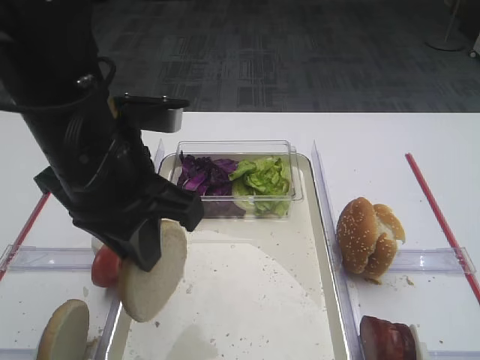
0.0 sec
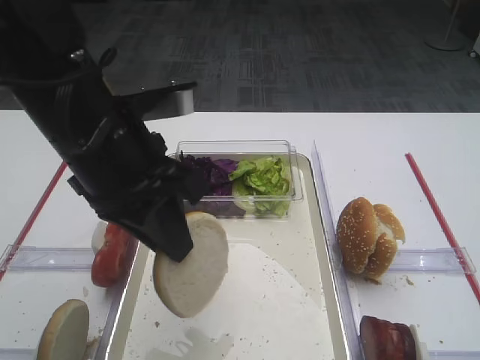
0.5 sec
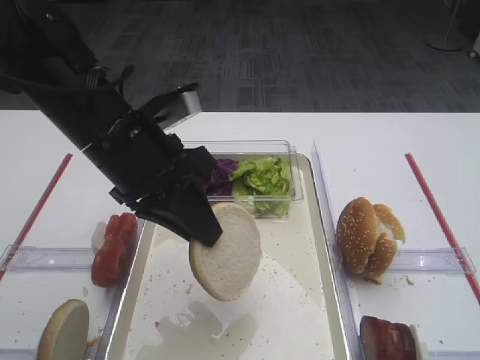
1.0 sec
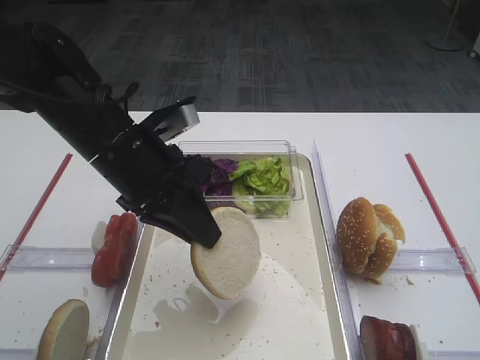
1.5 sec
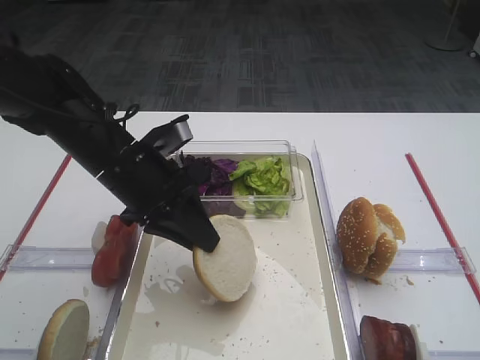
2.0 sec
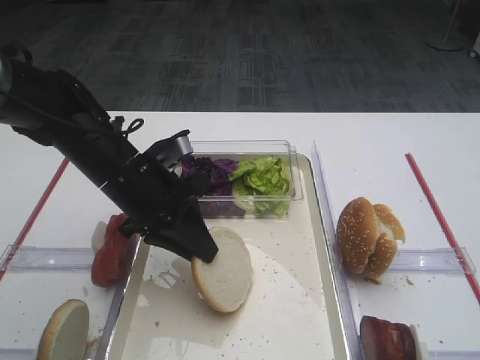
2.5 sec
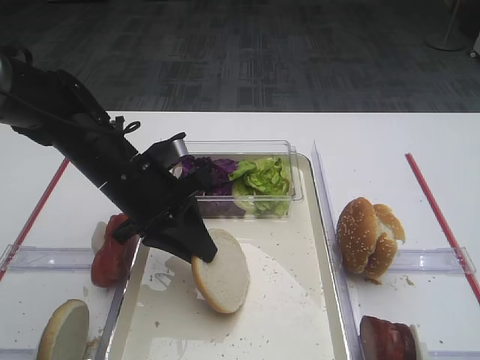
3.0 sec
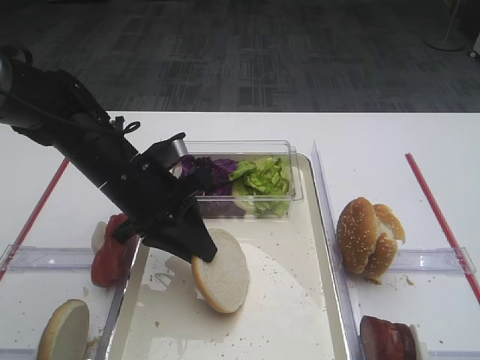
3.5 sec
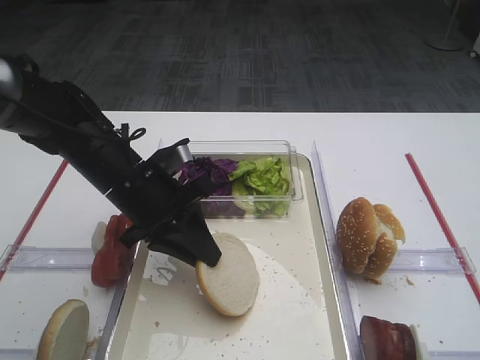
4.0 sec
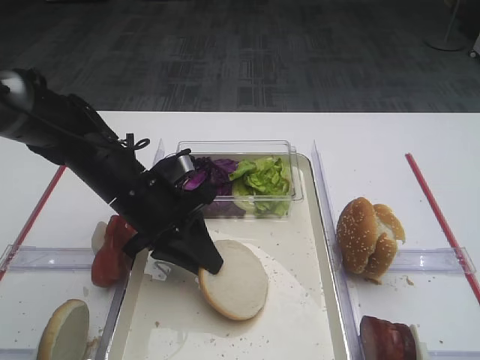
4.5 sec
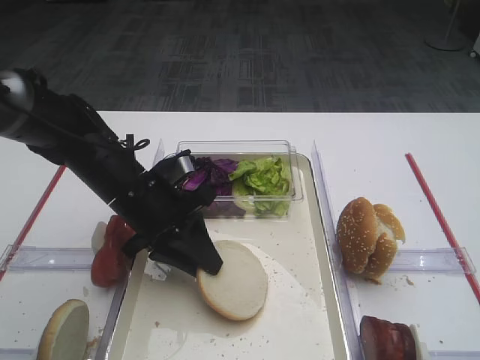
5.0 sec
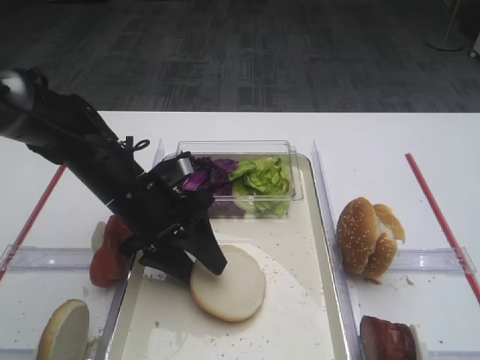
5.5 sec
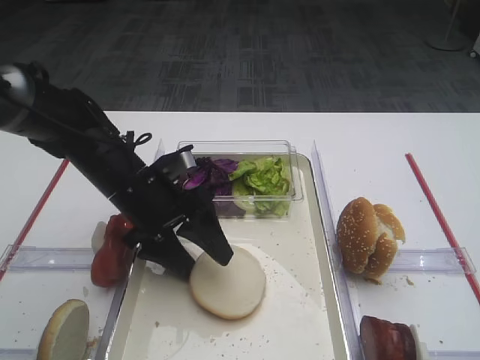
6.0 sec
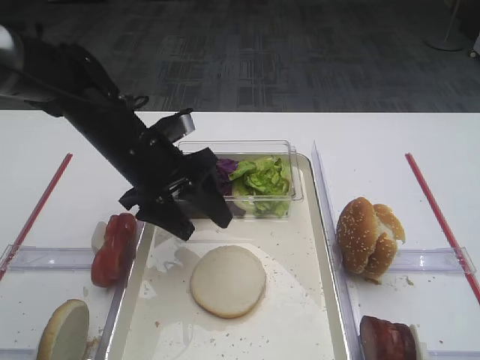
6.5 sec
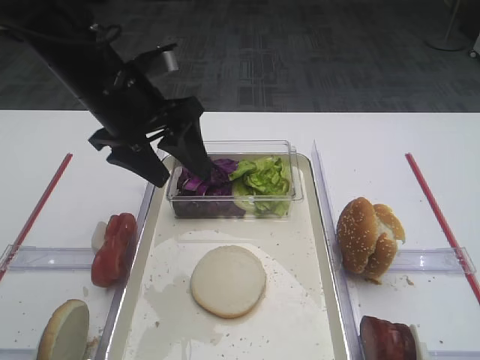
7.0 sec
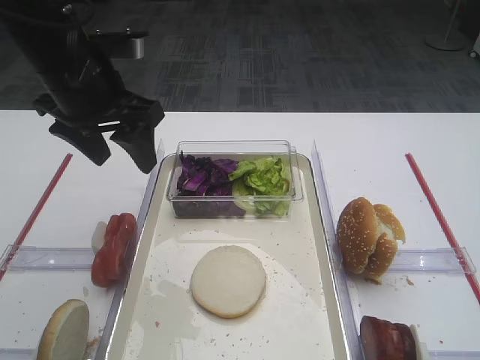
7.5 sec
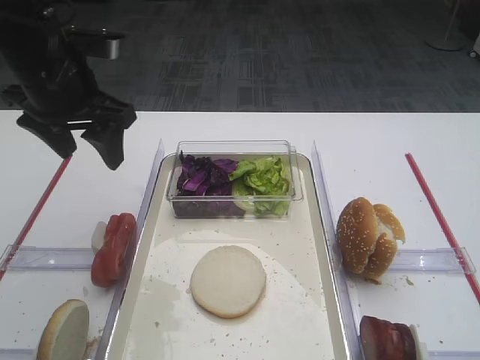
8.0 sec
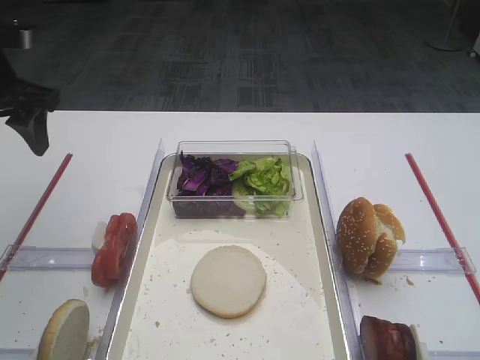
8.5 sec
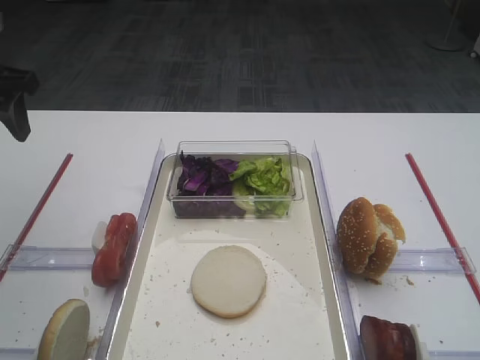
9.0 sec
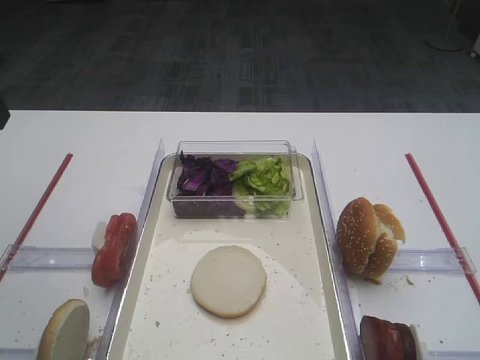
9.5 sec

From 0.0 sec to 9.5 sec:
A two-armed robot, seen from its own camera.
Step, from 0.0 sec to 6.5 sec: Place the bread slice on the tray with the left gripper.
From 0.0 sec to 2.0 sec: The left gripper heads downward and forward, covering roughly 10 cm.
From 2.0 sec to 4.0 sec: The grippers stay close to where they were, moving slightly.
From 4.0 sec to 5.5 sec: The left gripper opens its fingers.
From 5.5 sec to 7.5 sec: The left gripper moves upward, approximately 15 cm.
From 7.5 sec to 9.5 sec: The left gripper is displaced to the left, backward and upward by approximately 15 cm.
